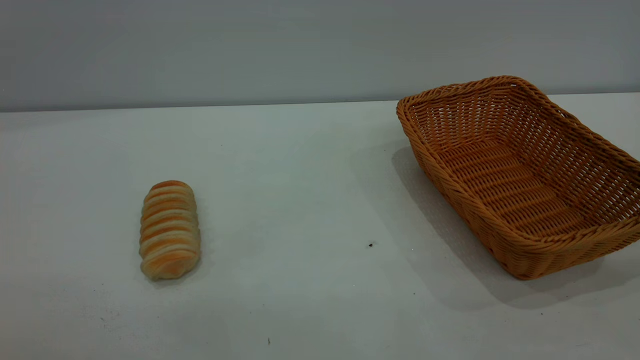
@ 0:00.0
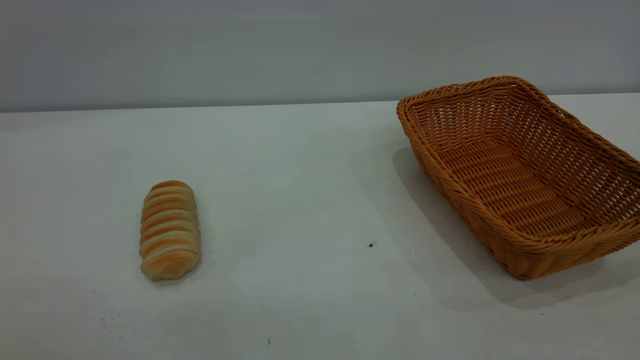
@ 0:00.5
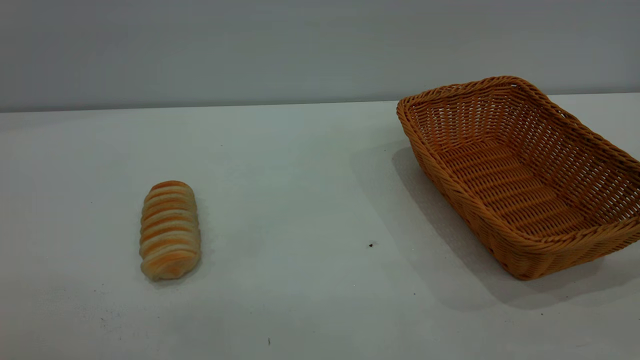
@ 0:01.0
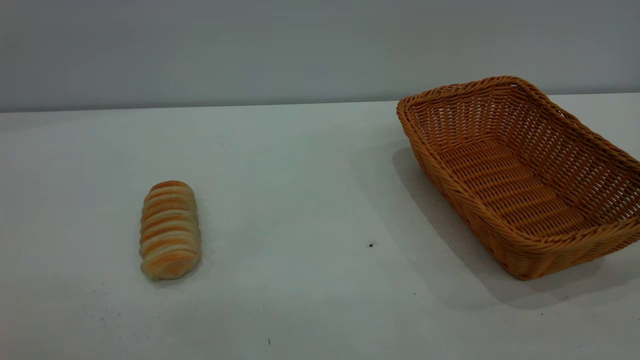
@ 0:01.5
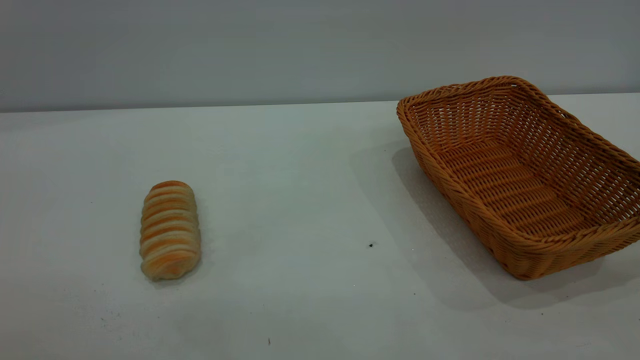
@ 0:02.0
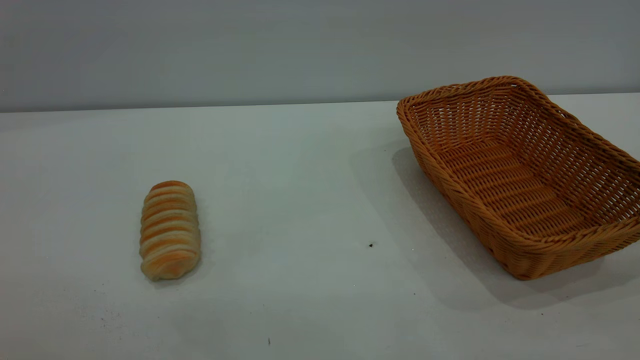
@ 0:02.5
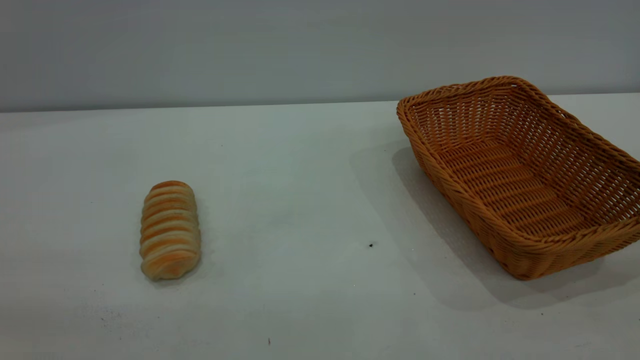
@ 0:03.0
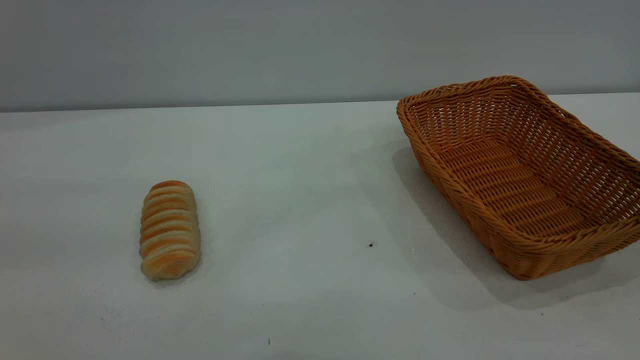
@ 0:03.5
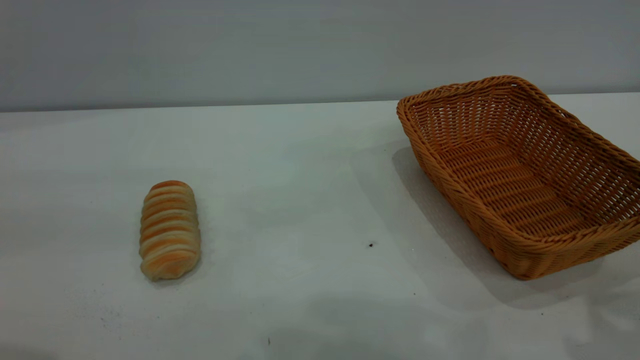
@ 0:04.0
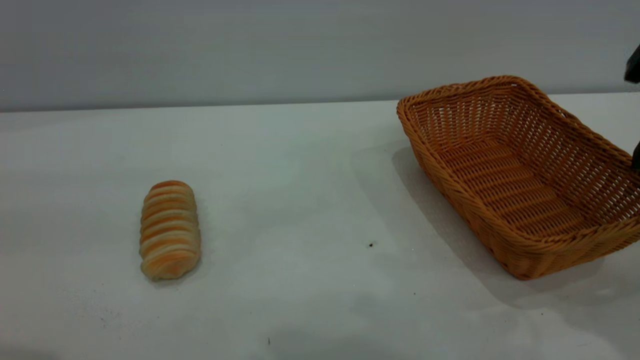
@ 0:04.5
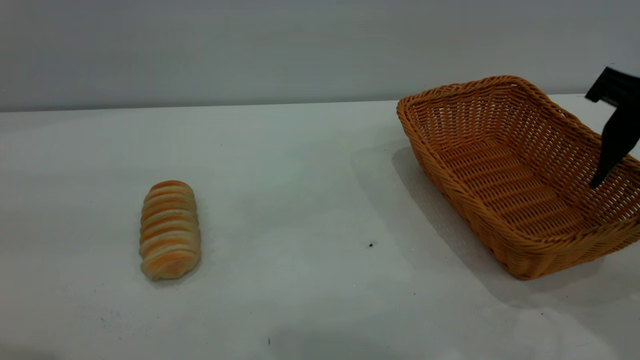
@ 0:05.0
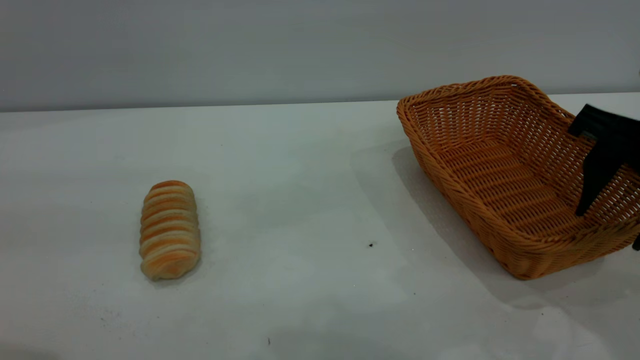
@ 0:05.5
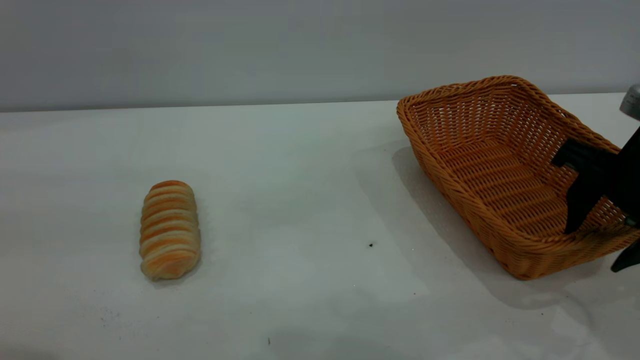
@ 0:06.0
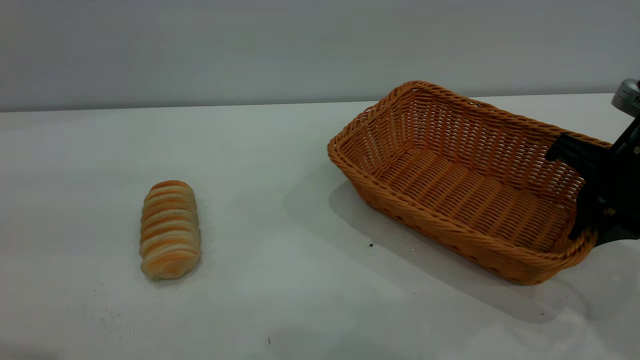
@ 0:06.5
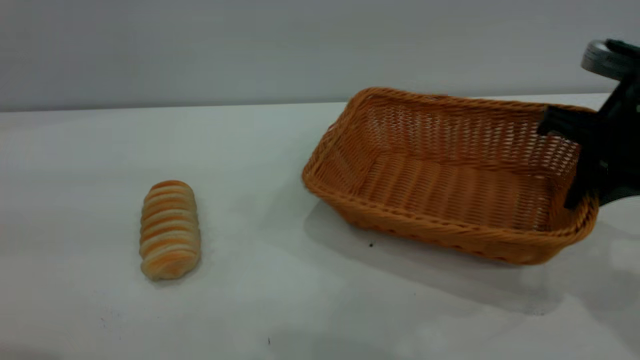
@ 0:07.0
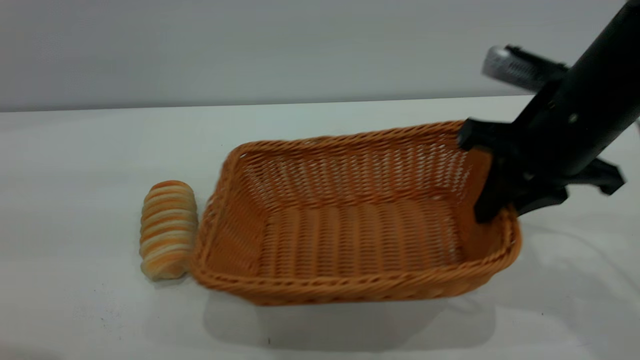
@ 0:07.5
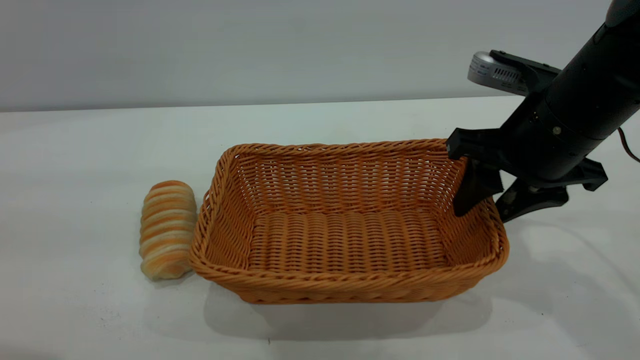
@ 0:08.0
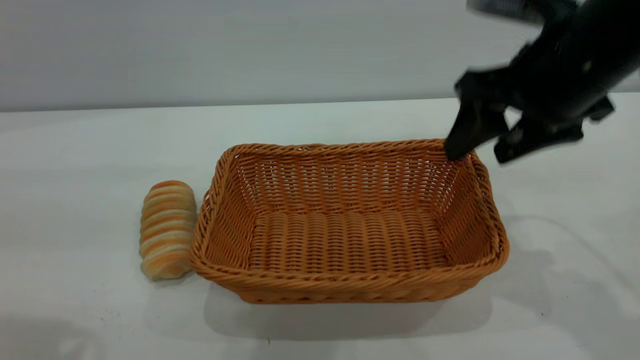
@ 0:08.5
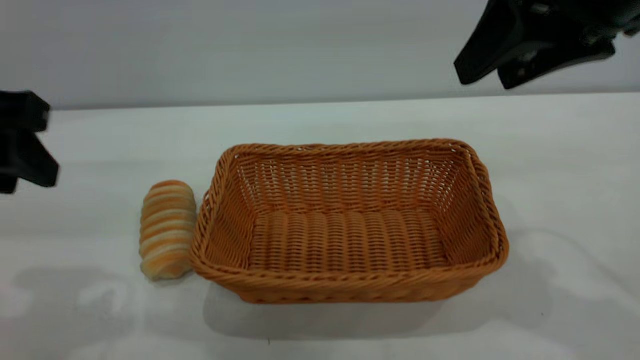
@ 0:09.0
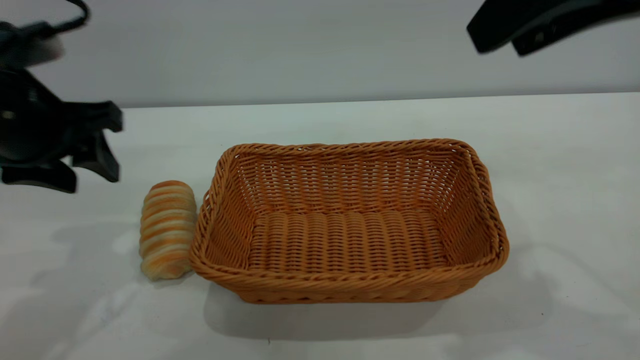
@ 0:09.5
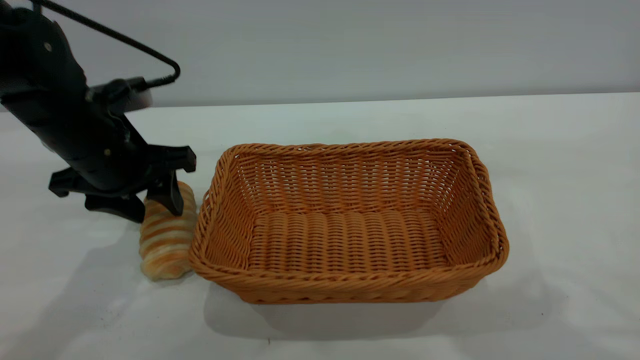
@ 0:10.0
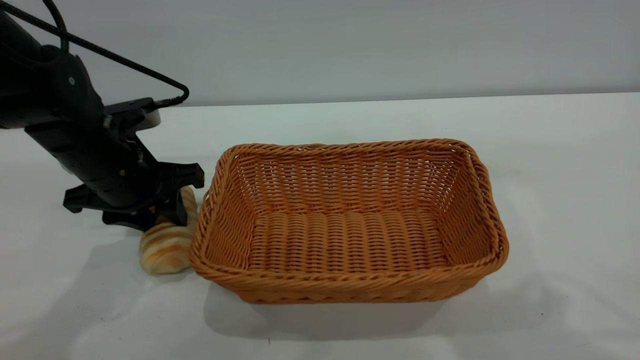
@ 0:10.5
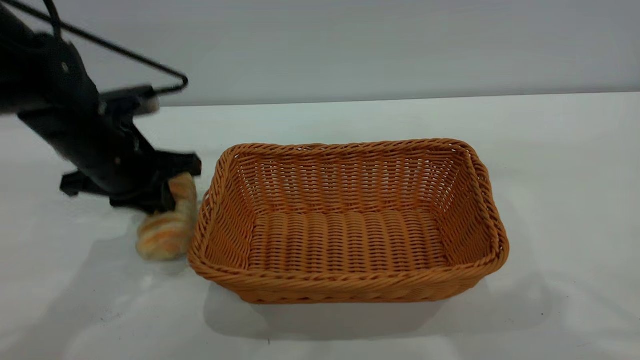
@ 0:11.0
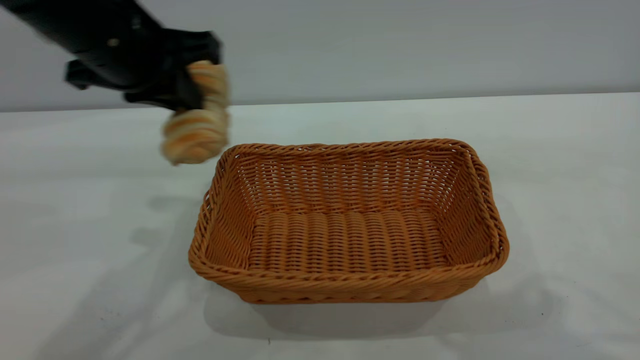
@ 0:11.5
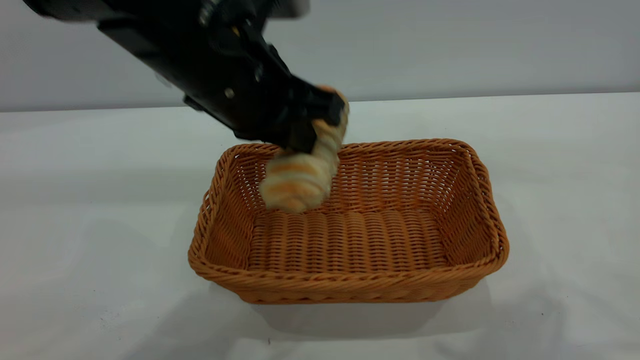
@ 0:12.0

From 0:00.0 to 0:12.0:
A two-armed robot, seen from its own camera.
Task of the whole recording: One hand grasps the yellow basket and places it in the middle of the table, while the other hand picks up the long bread and puts it into the yellow basket.
Step, from 0:00.0 to 0:08.5: Move the basket to the center of view.
From 0:04.0 to 0:06.0: The right gripper is displaced downward and forward by about 15 cm.
From 0:06.0 to 0:08.0: The right gripper heads to the left, covering roughly 5 cm, and closes, then opens again.
From 0:08.0 to 0:10.0: The left gripper moves forward and downward, about 30 cm, and opens. Meanwhile the right gripper travels upward and backward by some 25 cm.
From 0:10.0 to 0:12.0: The left gripper moves to the right and upward, about 15 cm, and closes up.

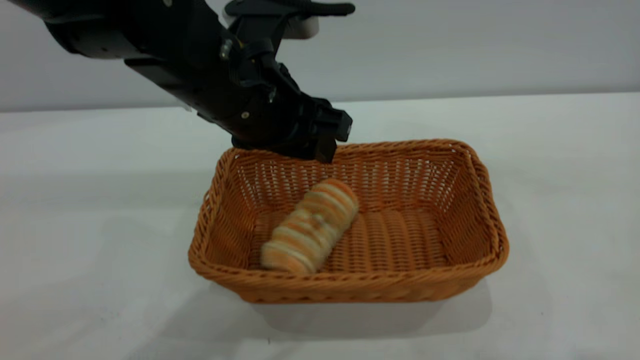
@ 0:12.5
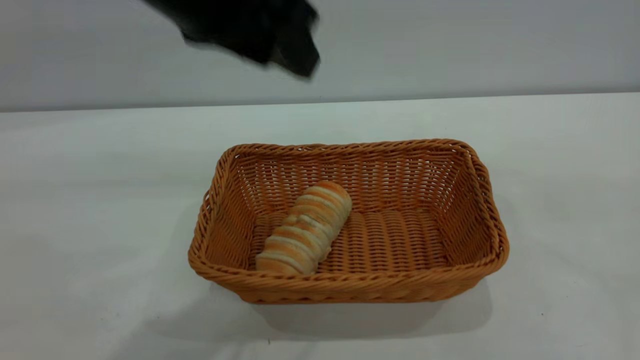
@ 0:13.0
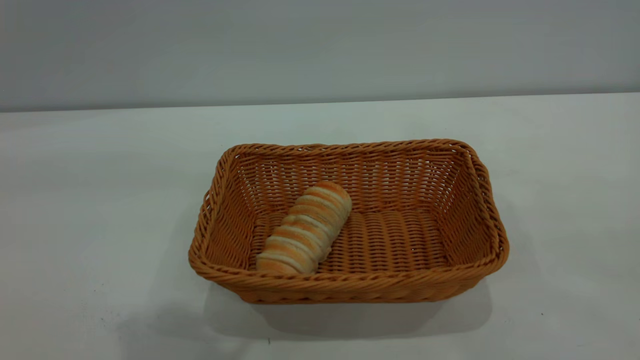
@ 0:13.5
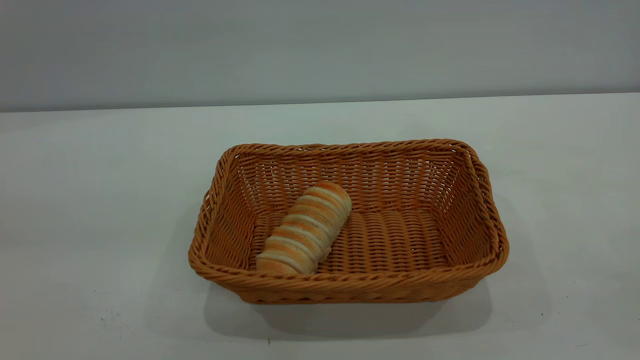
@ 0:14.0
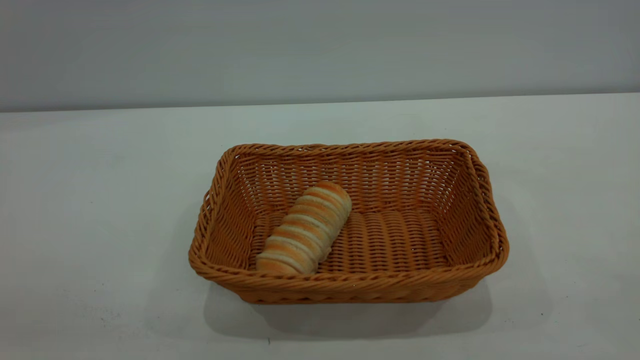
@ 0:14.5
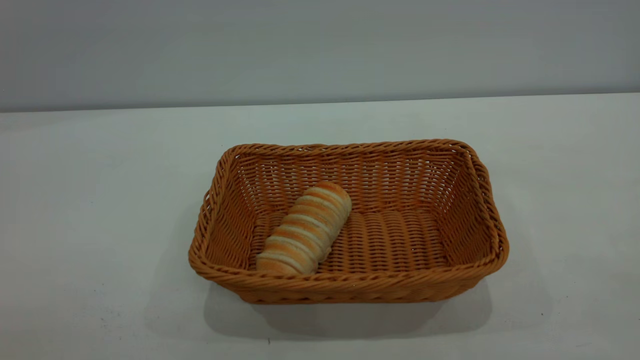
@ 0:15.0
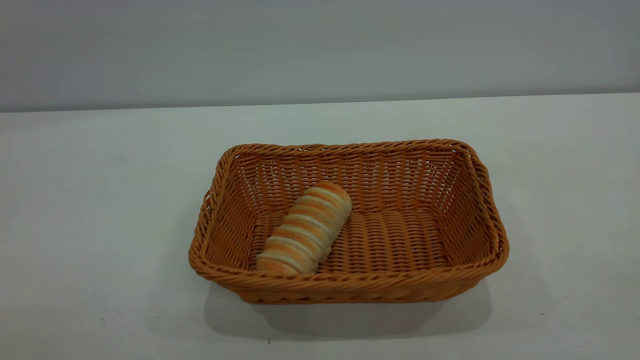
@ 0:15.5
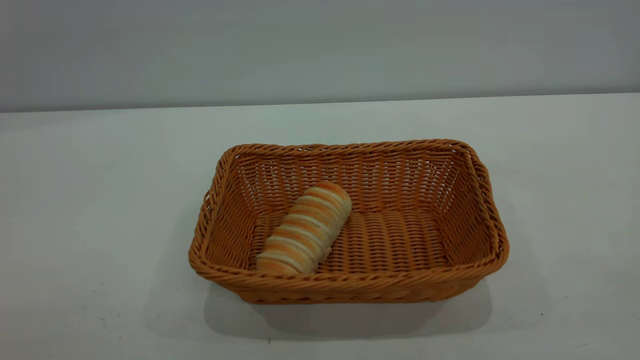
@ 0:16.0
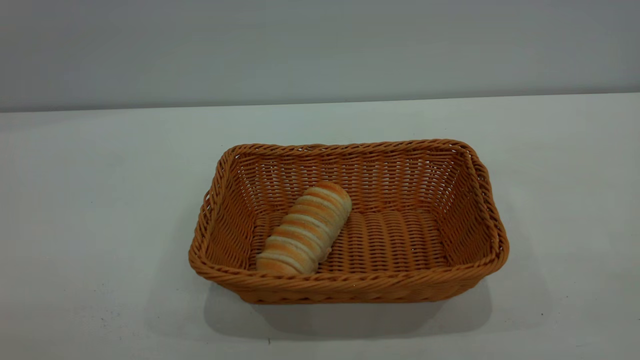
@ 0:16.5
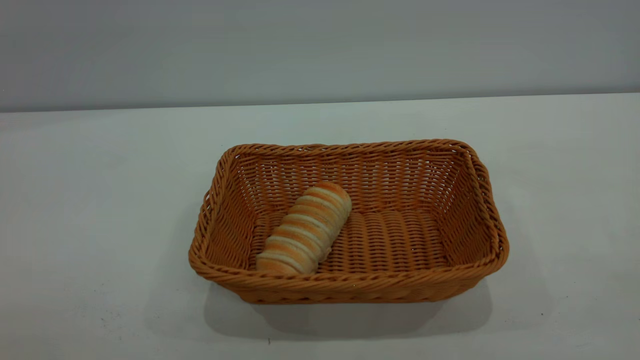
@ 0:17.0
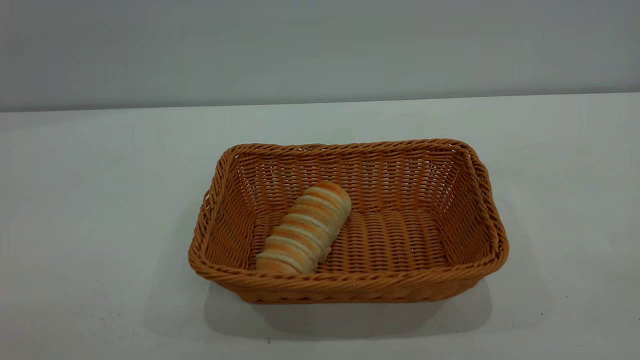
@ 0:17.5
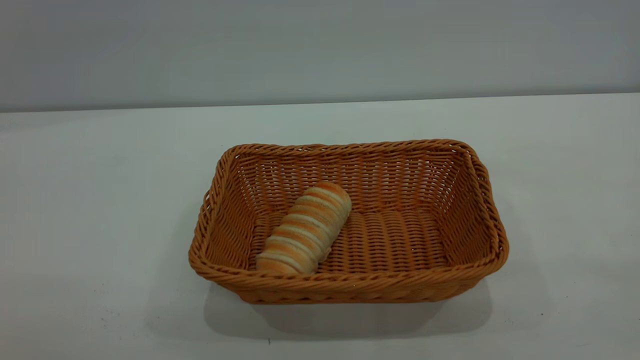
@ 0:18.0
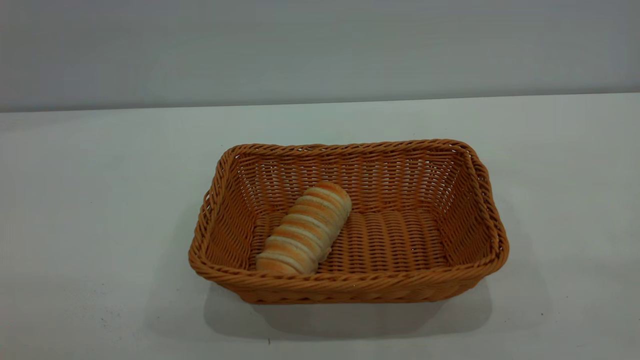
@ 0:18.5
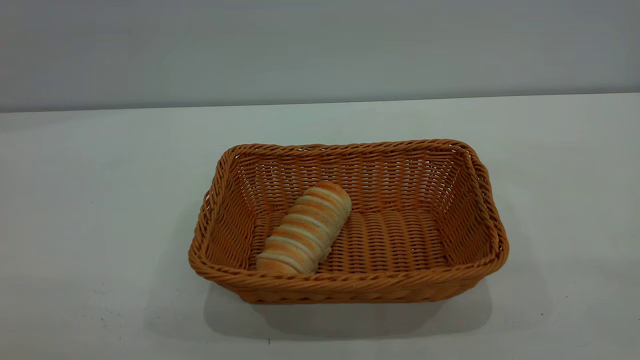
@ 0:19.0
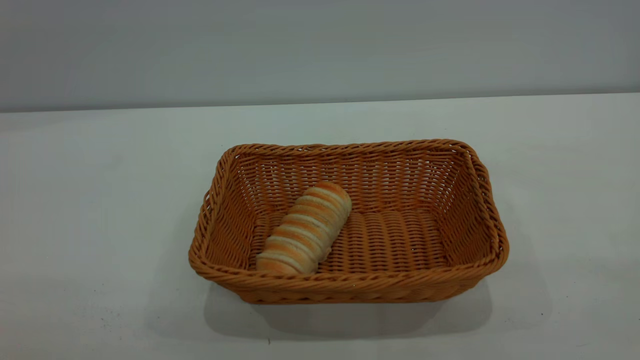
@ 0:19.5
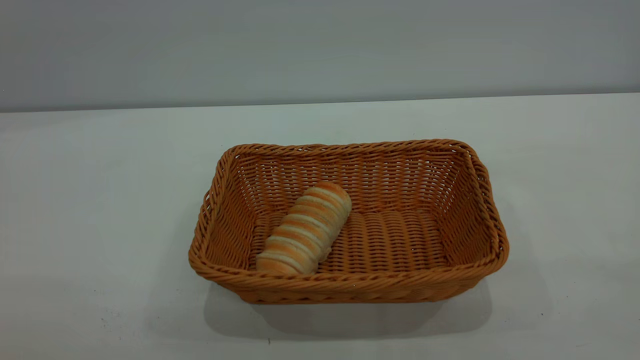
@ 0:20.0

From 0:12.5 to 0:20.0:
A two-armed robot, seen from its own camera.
Task of the whole recording: One hand grasps the yellow basket and places it in the middle of the table, while the other hand picks up the long bread and puts it into the yellow basket.
From 0:12.5 to 0:14.5: The right gripper is displaced backward, downward and to the right by roughly 20 cm. Meanwhile the left gripper moves backward, to the left and upward, about 40 cm.
From 0:18.0 to 0:20.0: The two grippers keep their place.
